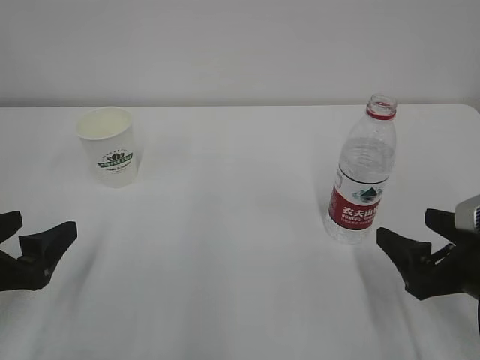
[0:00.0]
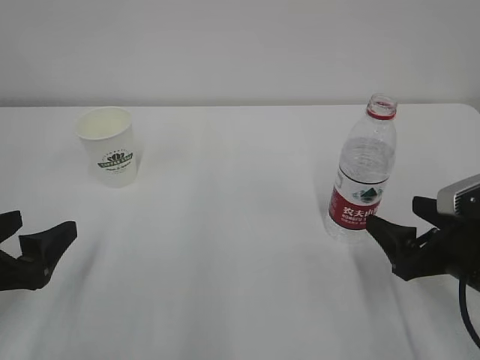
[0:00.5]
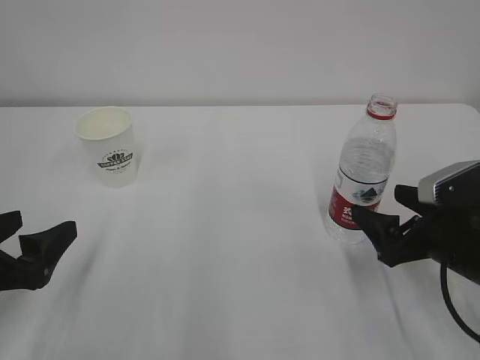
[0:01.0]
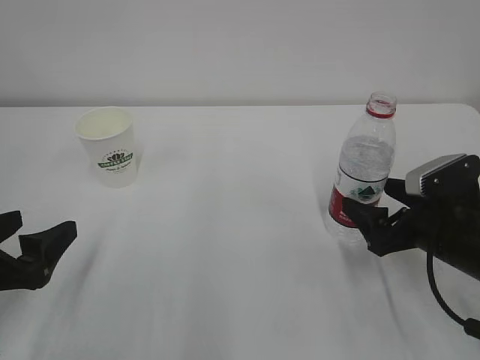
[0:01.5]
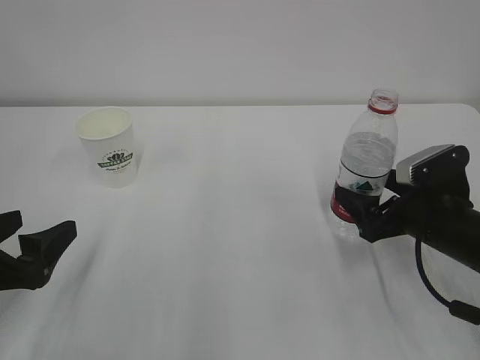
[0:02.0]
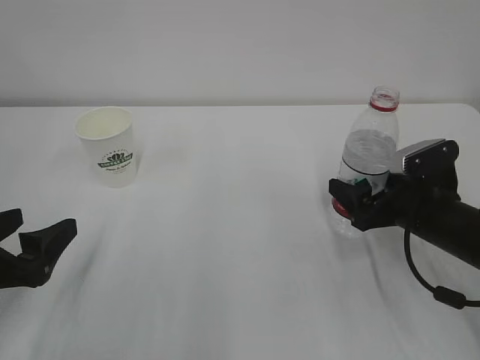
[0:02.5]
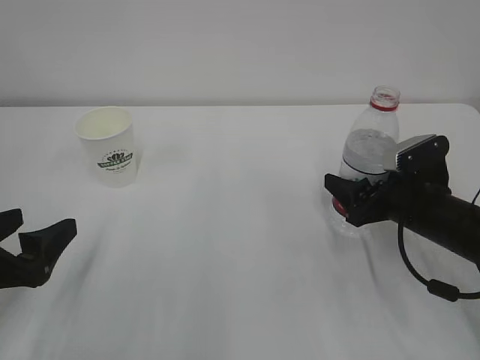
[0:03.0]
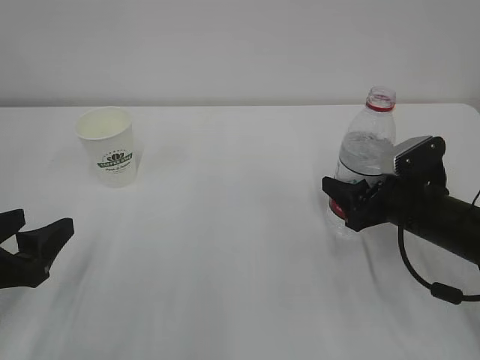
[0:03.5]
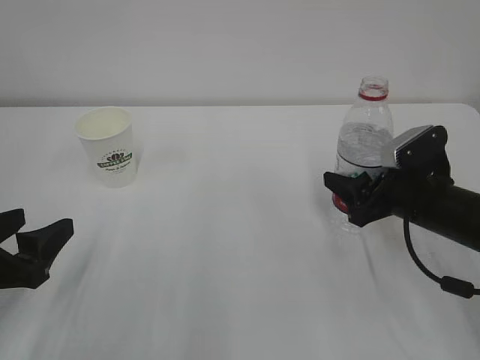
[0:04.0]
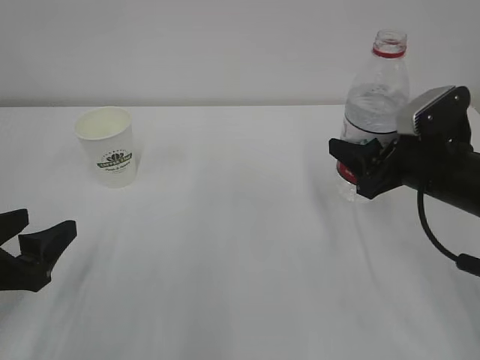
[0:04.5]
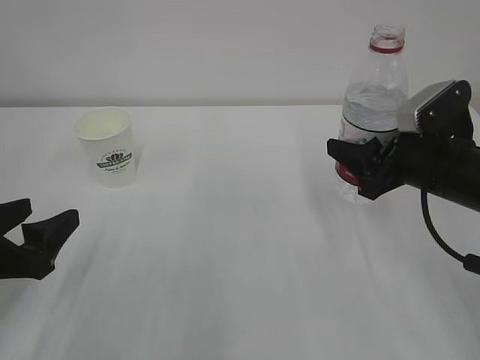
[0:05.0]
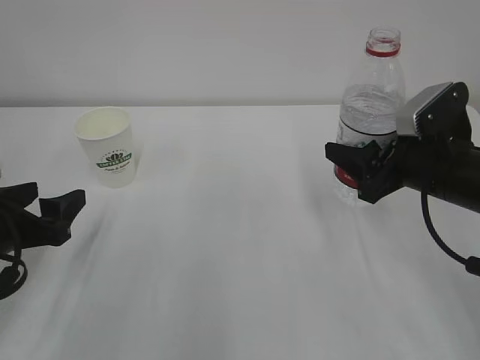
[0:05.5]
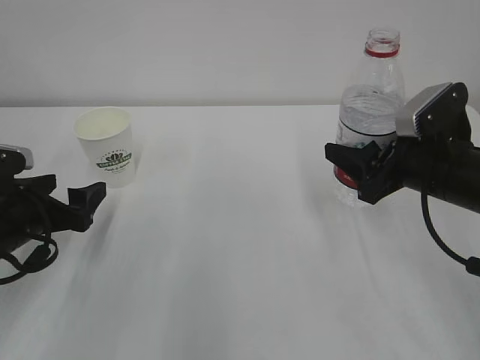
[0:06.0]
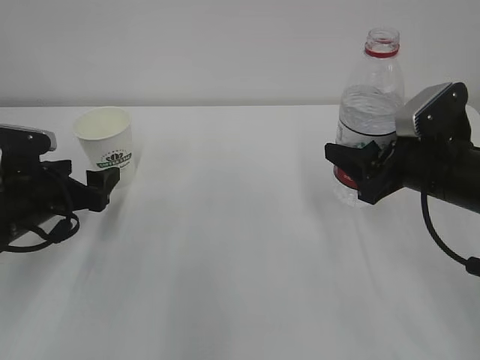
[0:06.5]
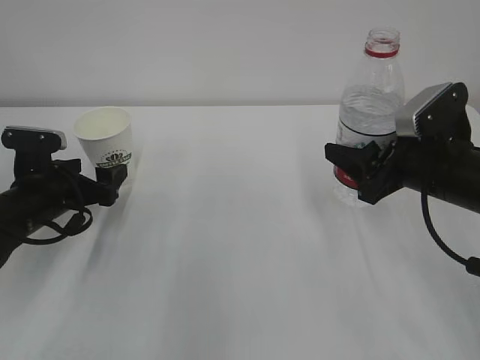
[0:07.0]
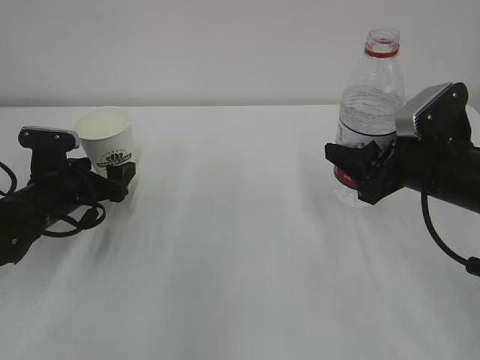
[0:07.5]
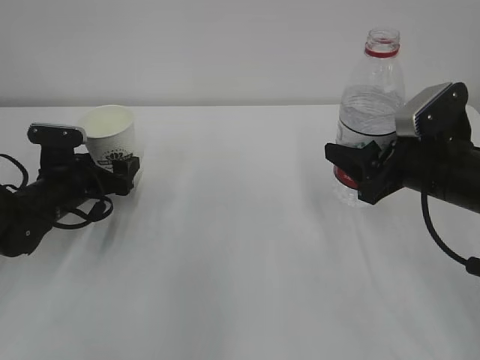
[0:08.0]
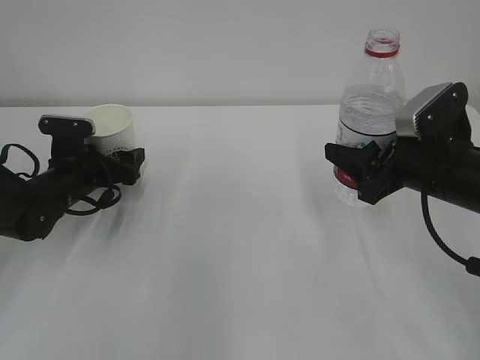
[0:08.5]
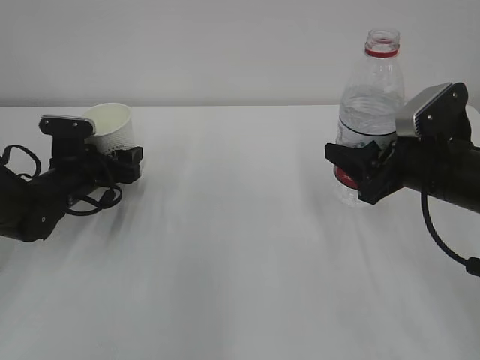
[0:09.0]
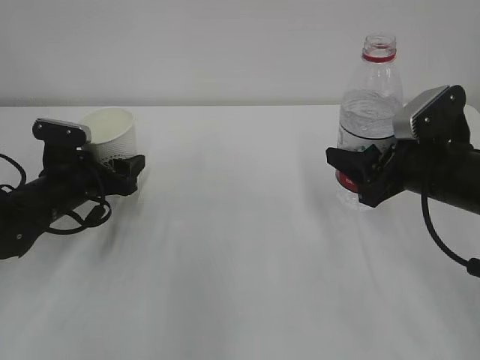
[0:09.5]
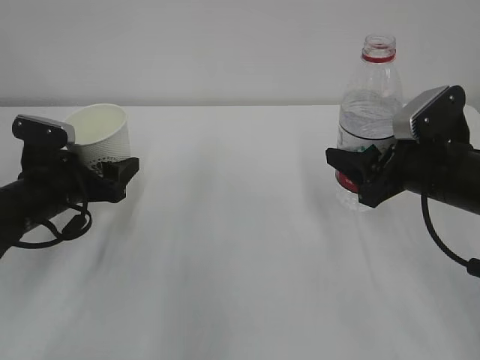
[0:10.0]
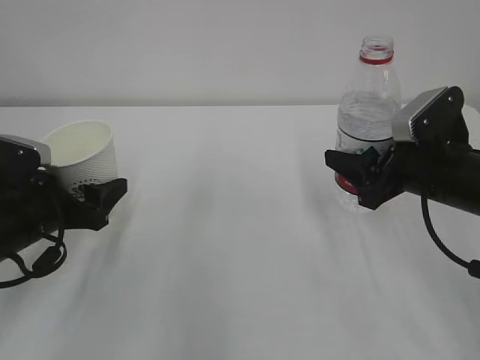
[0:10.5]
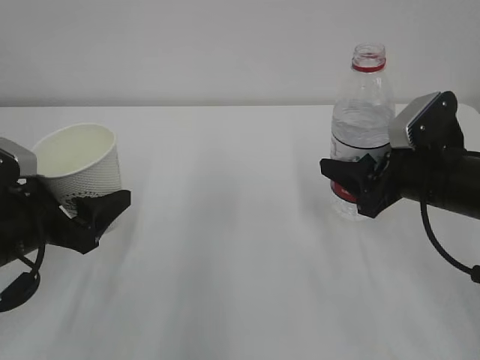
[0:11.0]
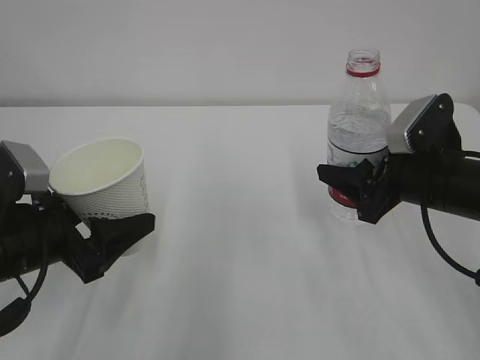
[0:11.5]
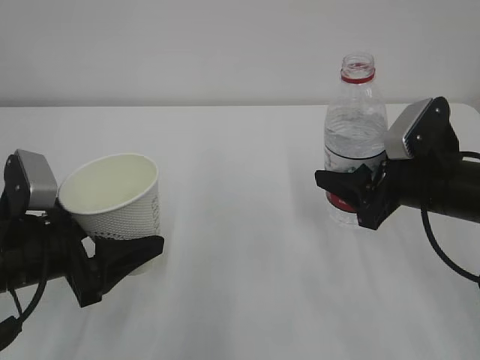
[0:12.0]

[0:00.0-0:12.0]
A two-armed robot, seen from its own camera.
0:00.0 to 0:02.0: The right gripper goes some 10 cm forward.
0:02.0 to 0:04.0: The left gripper closes up, while the right gripper closes up.
0:04.0 to 0:06.0: The right gripper moves upward, roughly 5 cm, while the left gripper is displaced forward by approximately 10 cm, and opens.
0:06.0 to 0:08.0: The left gripper shifts roughly 10 cm forward.
0:08.0 to 0:10.0: The left gripper shifts by about 5 cm, and closes up.
0:10.0 to 0:12.0: The left gripper heads backward, covering about 10 cm.

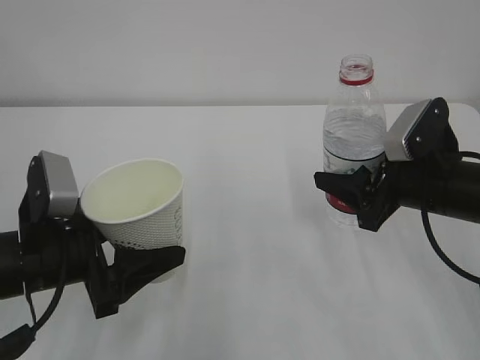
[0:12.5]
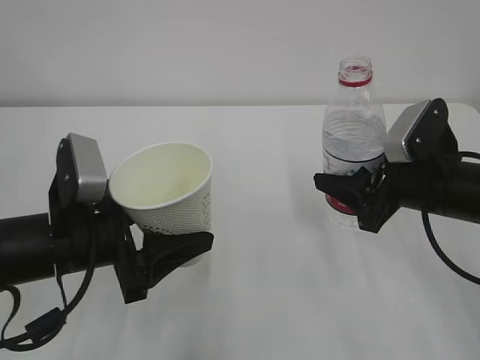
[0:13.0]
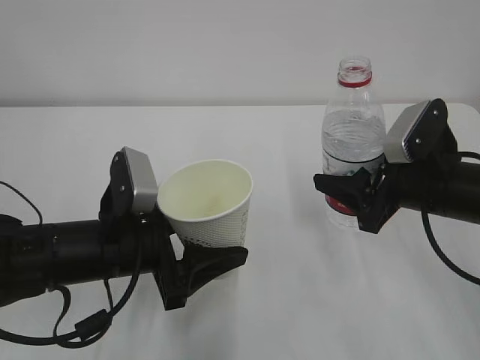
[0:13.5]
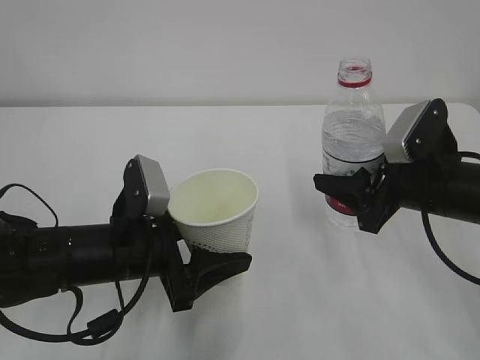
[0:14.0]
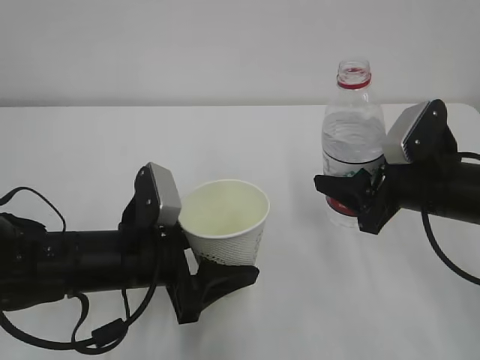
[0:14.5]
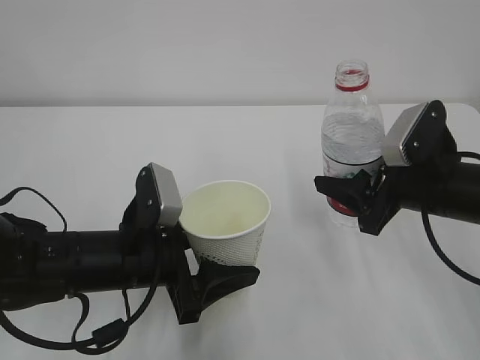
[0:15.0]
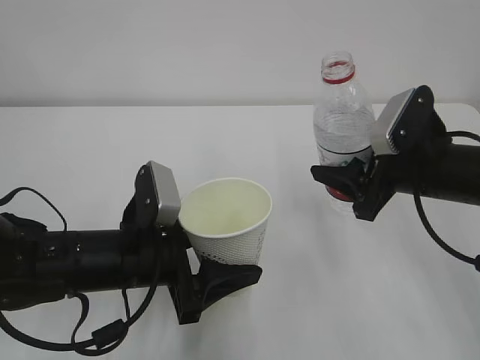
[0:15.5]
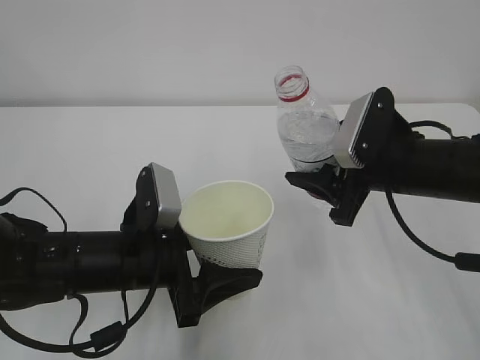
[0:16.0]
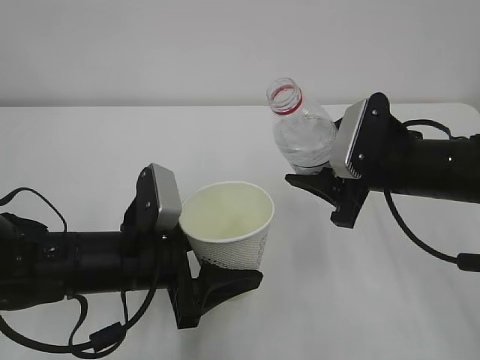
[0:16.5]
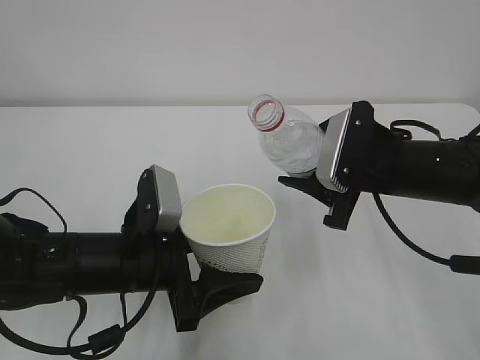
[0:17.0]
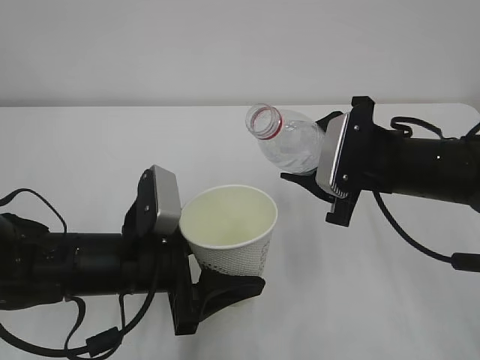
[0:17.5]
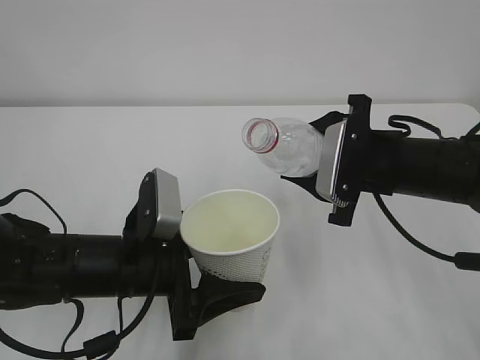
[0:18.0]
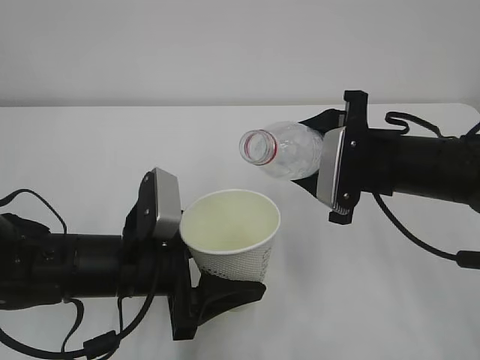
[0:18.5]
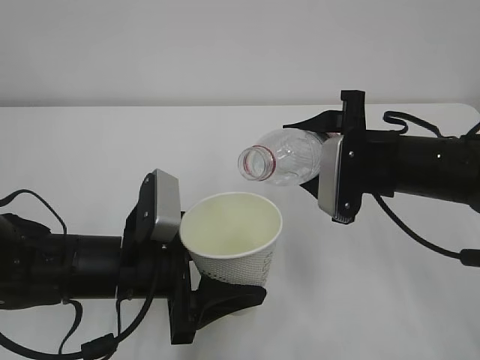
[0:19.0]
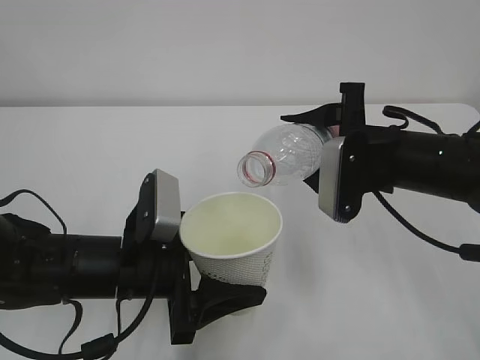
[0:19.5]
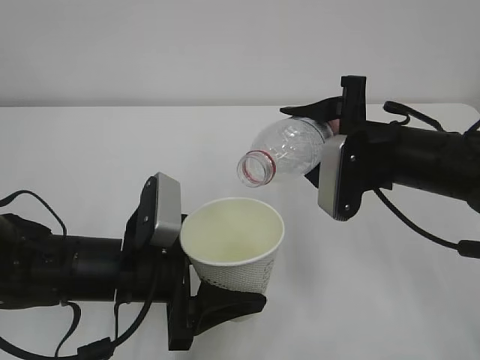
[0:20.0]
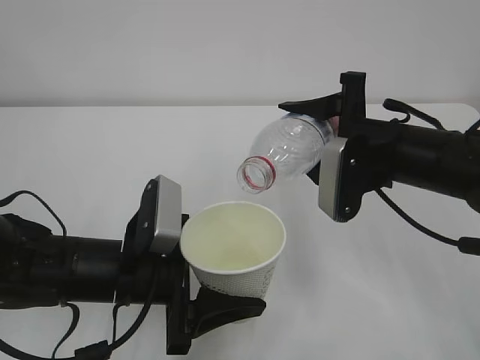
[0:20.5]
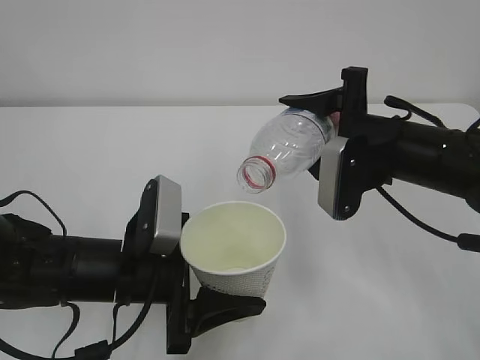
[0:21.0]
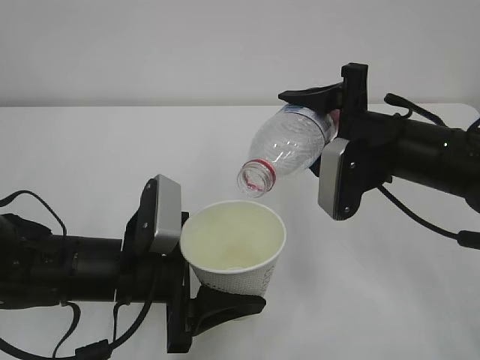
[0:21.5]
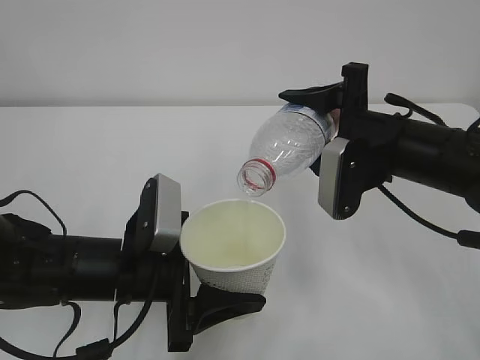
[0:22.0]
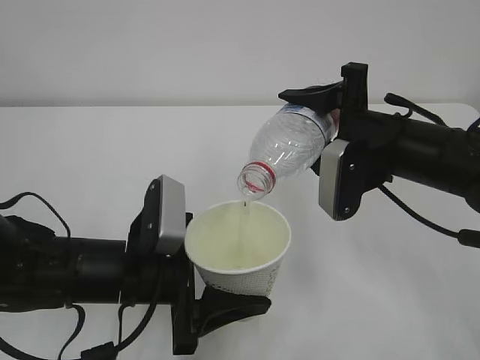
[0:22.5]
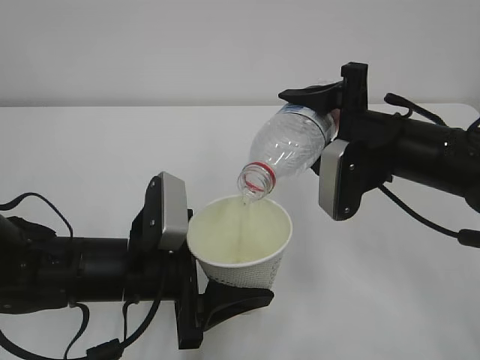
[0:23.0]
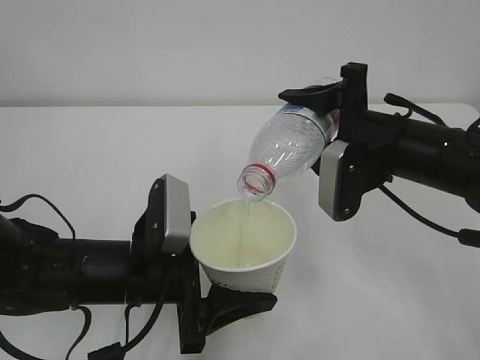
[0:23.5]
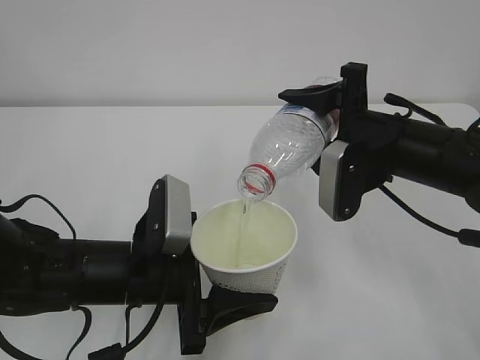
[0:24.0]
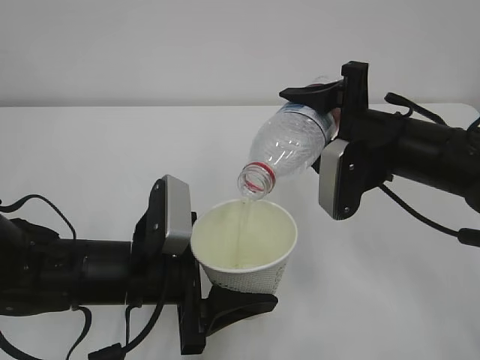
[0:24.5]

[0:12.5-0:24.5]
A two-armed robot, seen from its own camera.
0:12.5 to 0:14.5: The left gripper moves to the right, roughly 5 cm.
0:20.5 to 0:22.5: The grippers stay close to where they were, moving slightly.
0:22.5 to 0:24.5: Neither gripper changes place.

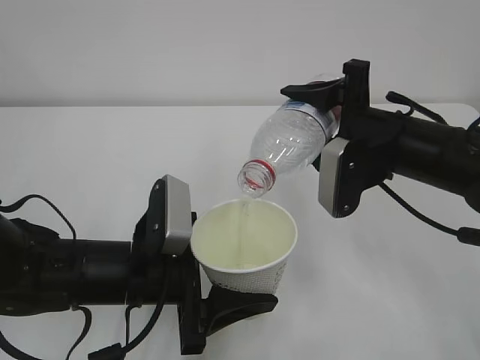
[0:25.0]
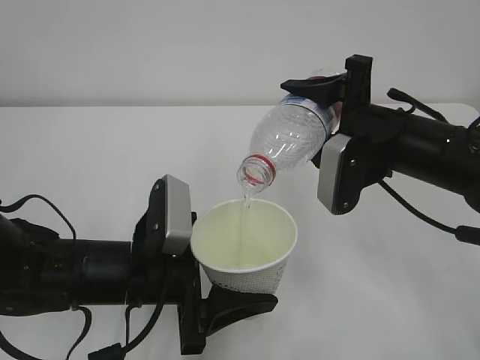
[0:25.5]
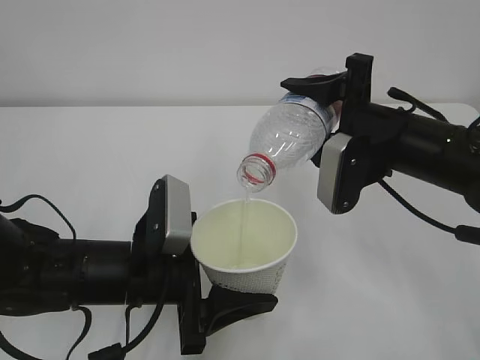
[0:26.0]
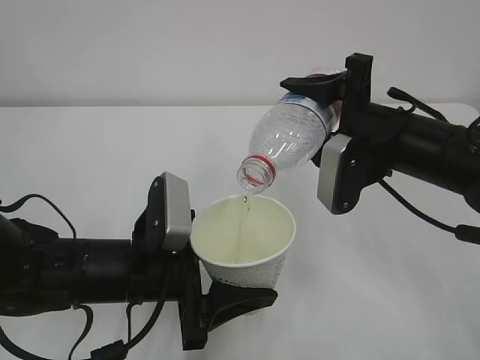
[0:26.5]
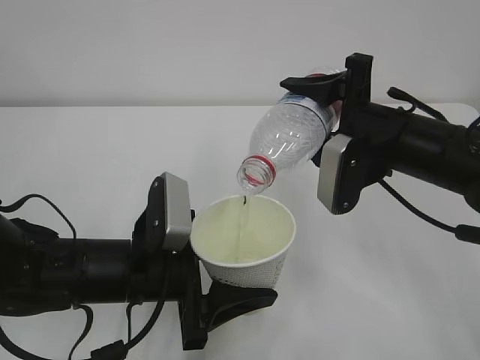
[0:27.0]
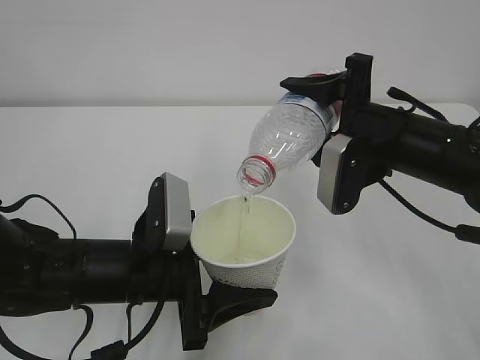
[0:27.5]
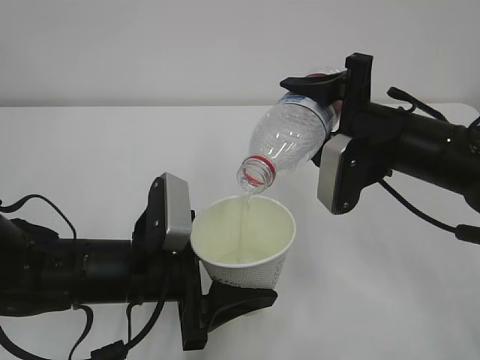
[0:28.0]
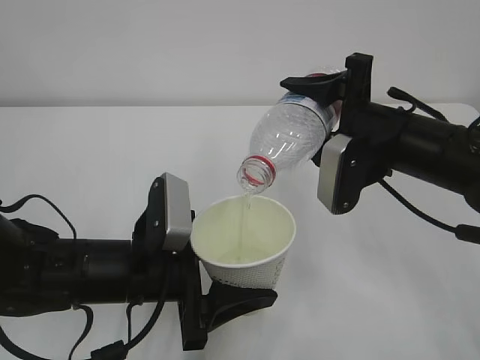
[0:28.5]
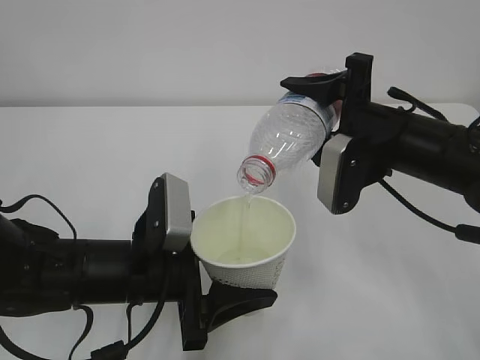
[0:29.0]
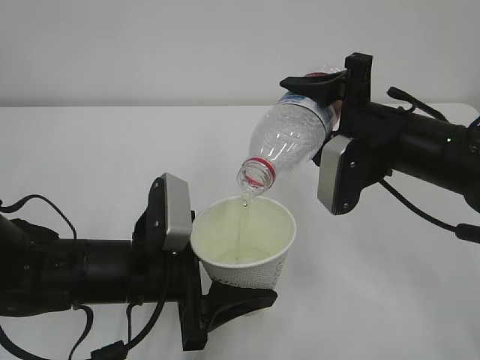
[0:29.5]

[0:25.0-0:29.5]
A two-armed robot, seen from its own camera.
0:25.0 to 0:29.5: Both grippers stay put.
